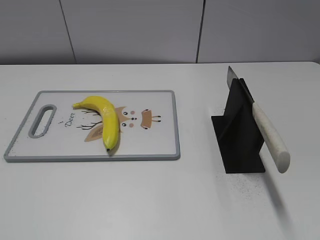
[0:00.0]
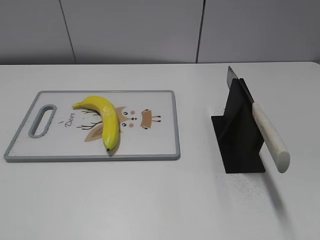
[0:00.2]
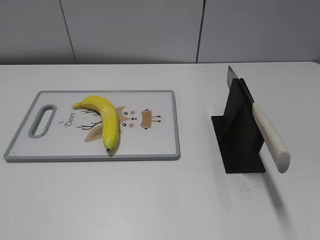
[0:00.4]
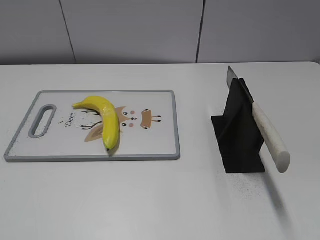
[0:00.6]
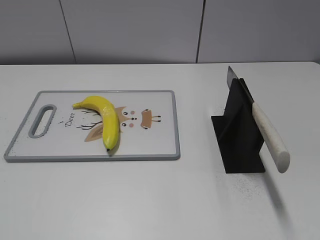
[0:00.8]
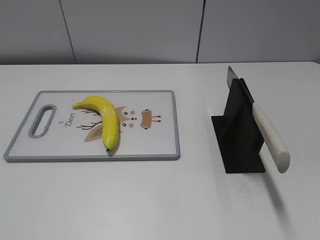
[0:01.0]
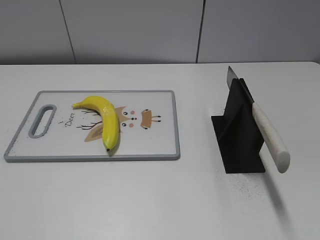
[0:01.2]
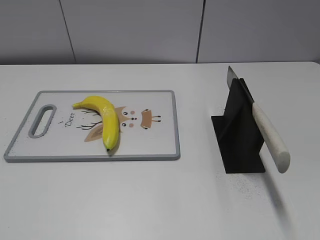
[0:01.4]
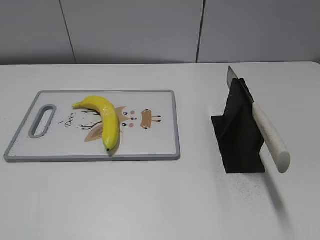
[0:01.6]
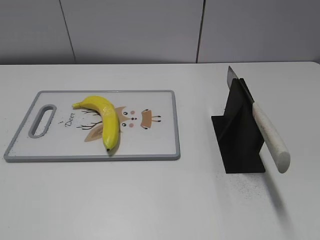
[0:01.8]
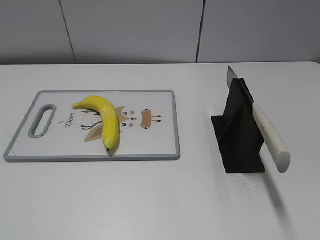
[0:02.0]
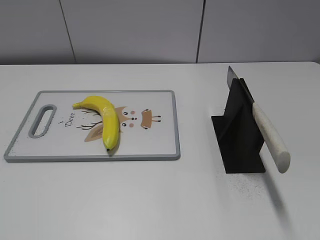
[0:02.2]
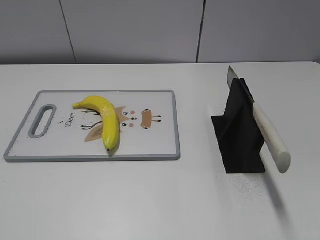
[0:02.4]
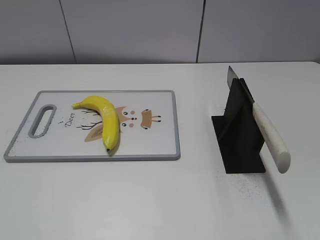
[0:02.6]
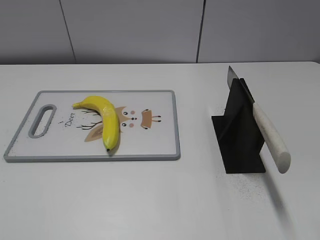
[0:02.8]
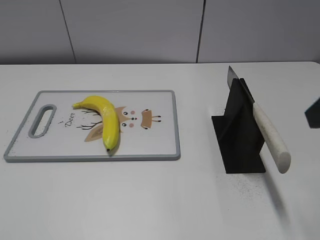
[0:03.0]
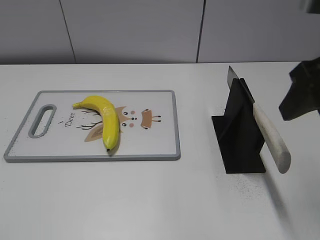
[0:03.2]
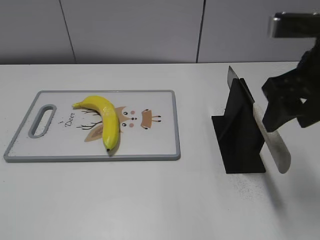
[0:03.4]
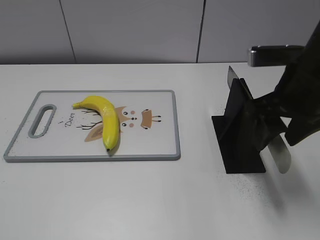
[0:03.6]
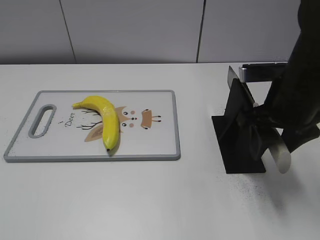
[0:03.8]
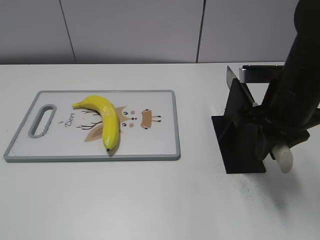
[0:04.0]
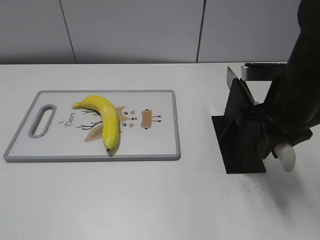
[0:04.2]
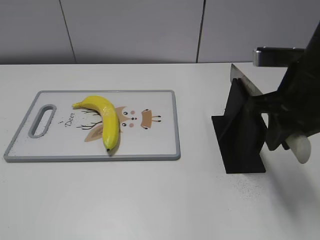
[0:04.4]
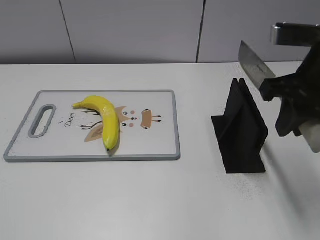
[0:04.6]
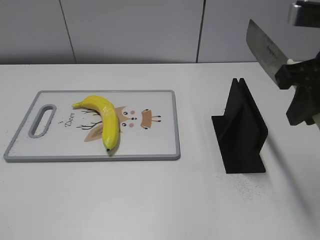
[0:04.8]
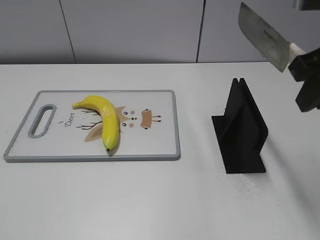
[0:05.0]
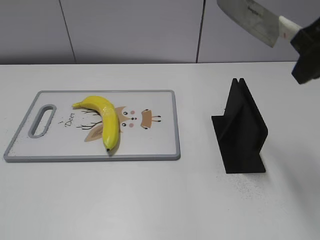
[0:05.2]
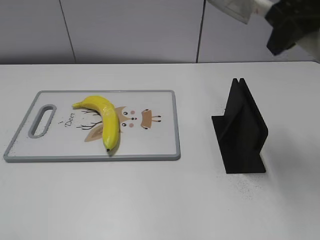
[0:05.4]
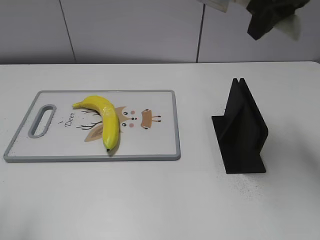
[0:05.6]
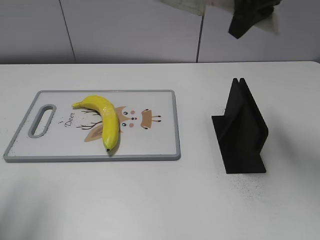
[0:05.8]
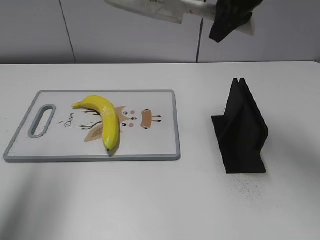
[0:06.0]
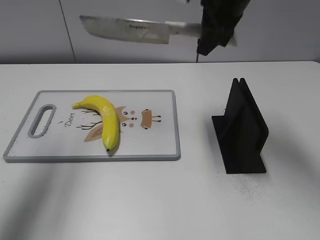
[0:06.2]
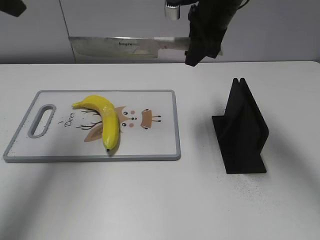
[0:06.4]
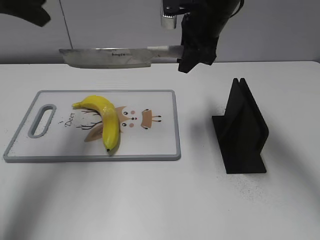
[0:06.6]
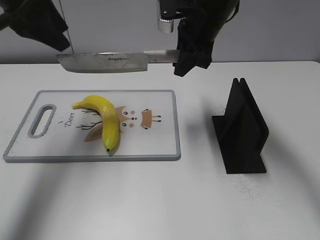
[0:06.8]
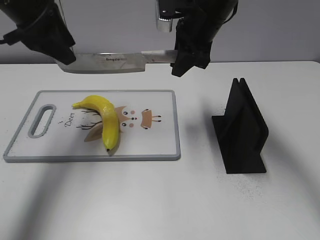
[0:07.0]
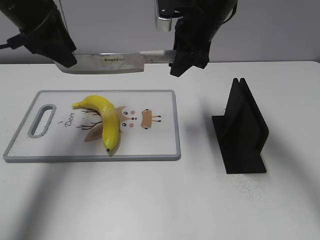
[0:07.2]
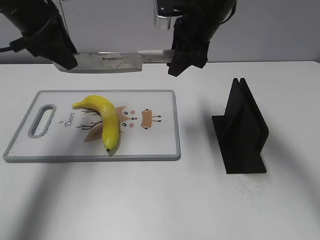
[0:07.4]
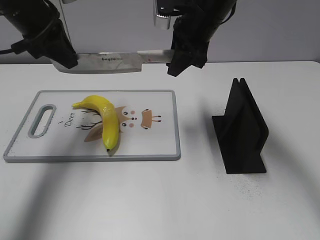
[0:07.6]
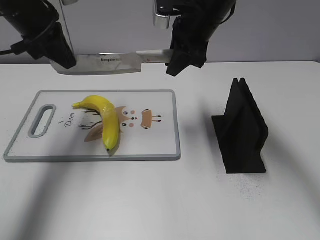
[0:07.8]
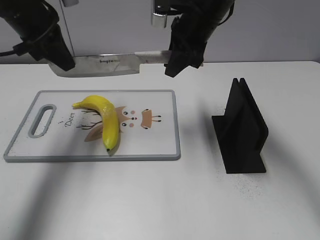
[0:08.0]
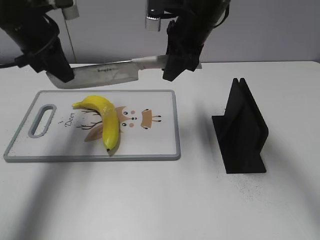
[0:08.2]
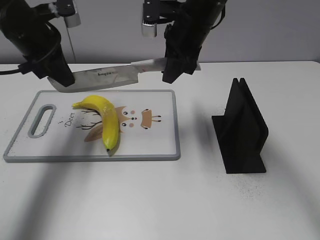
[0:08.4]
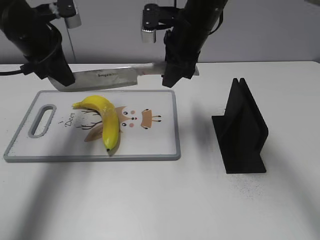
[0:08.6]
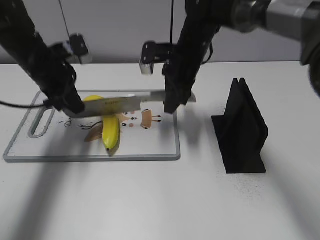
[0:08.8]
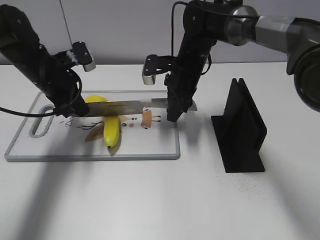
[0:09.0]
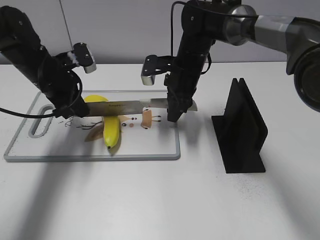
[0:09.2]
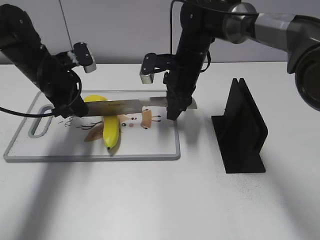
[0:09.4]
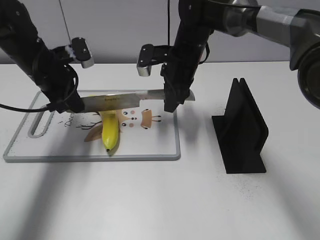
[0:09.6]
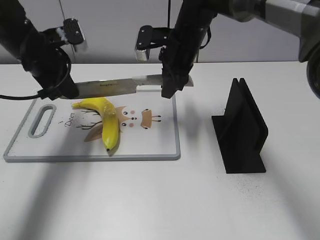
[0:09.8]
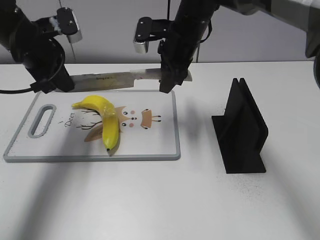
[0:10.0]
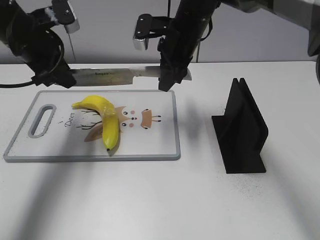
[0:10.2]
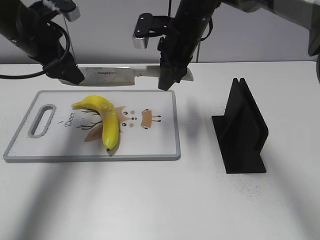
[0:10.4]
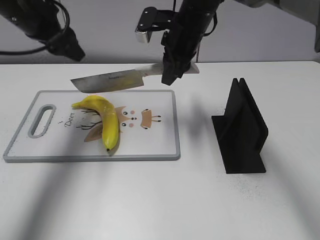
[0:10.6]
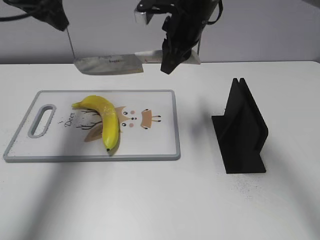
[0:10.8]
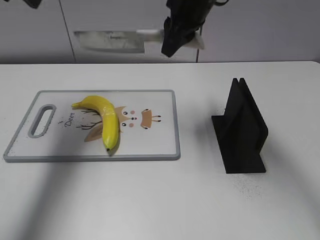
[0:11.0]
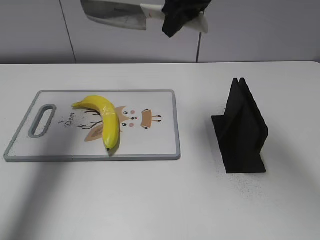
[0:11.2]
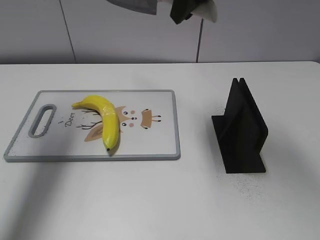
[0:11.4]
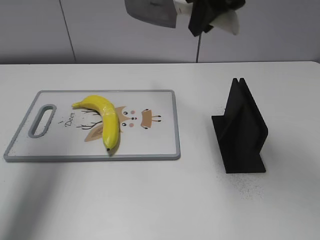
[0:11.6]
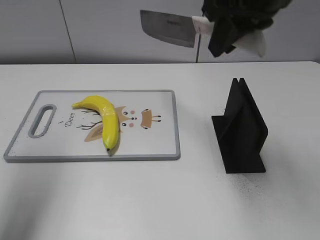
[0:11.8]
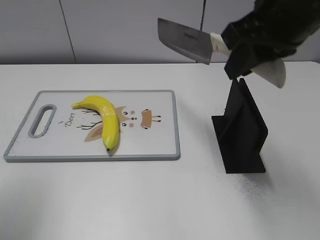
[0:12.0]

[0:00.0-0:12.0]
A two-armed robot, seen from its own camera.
Task of the whole recording: cut plastic banana.
Step, 0:00.0 to 0:04.8: Grab the knife handle with your right hand.
Step, 0:05.0 to 0:09.6: Lift the knife with your right hand.
Step, 0:09.8 to 0:11.6: Cut the banana with your right hand.
0:03.0 to 0:04.4: The right gripper travels forward and downward by about 15 cm, and closes up.
0:04.4 to 0:06.0: The left gripper is displaced forward and upward by some 25 cm. The right gripper is displaced forward, upward and to the left by roughly 15 cm.
0:06.0 to 0:07.6: The right gripper shifts some 10 cm downward and to the left. Meanwhile the left gripper goes about 20 cm forward, downward and to the right, and closes.
0:07.6 to 0:09.0: Both grippers travel together downward, roughly 15 cm.
0:09.0 to 0:10.4: The two grippers go some 10 cm upward. The left gripper opens up.
0:10.4 to 0:12.0: The right gripper shifts about 25 cm backward, upward and to the right. Meanwhile the left gripper heads backward, upward and to the left, covering about 25 cm.

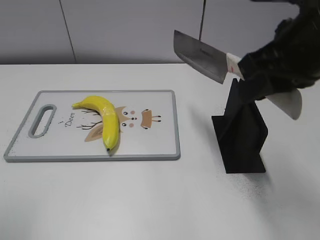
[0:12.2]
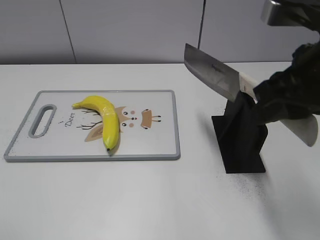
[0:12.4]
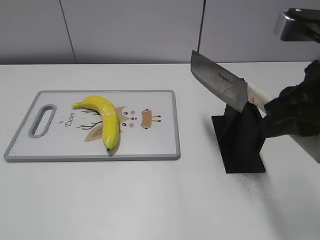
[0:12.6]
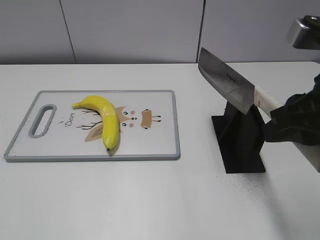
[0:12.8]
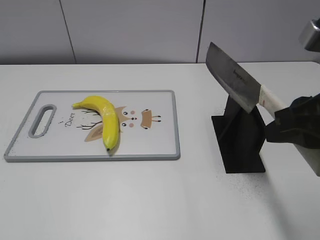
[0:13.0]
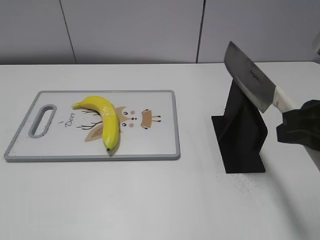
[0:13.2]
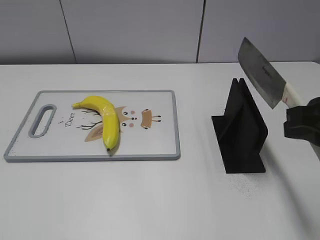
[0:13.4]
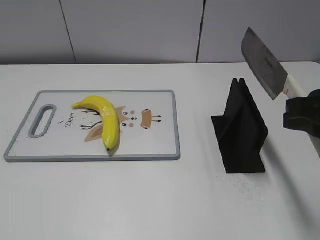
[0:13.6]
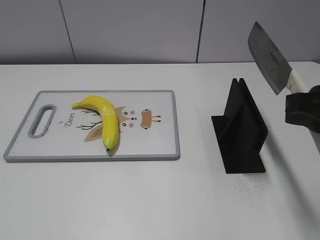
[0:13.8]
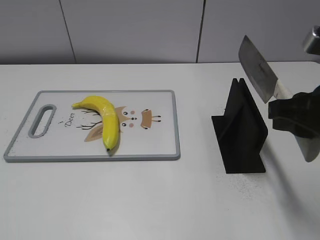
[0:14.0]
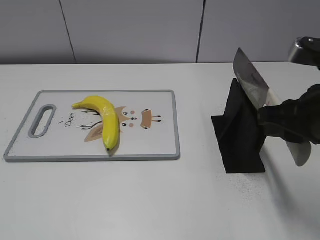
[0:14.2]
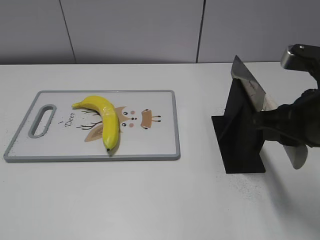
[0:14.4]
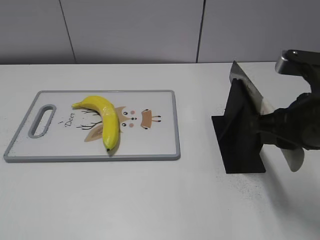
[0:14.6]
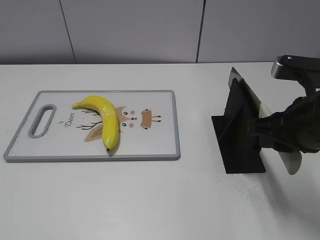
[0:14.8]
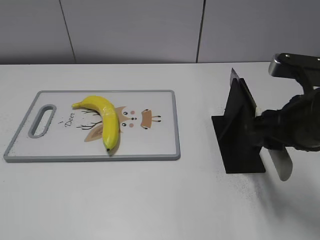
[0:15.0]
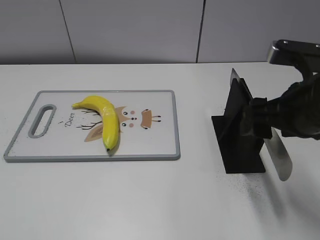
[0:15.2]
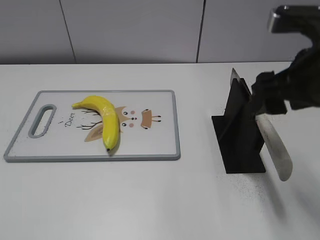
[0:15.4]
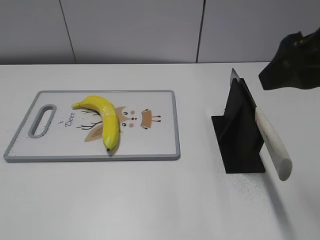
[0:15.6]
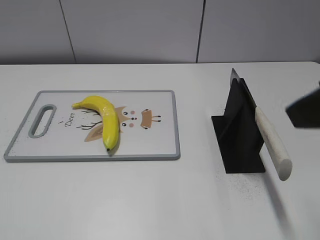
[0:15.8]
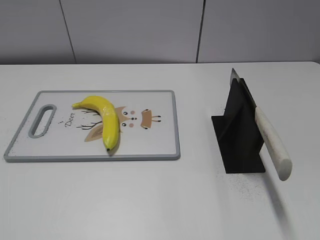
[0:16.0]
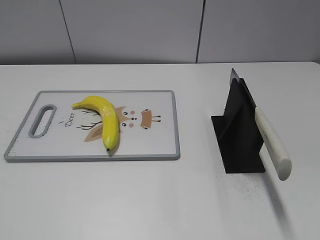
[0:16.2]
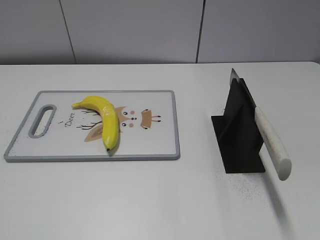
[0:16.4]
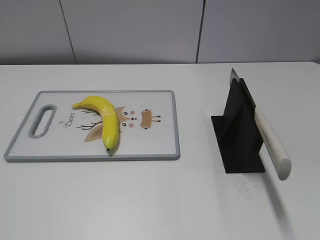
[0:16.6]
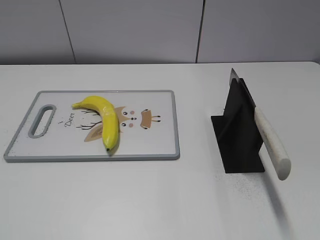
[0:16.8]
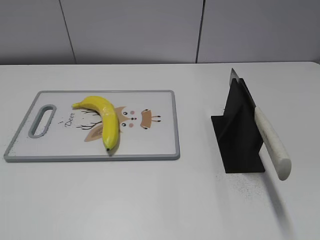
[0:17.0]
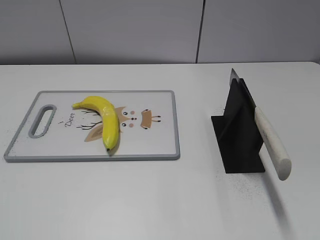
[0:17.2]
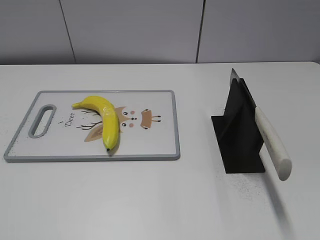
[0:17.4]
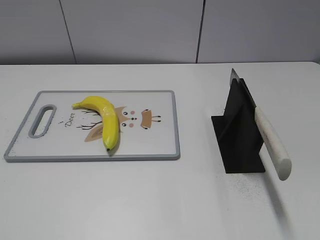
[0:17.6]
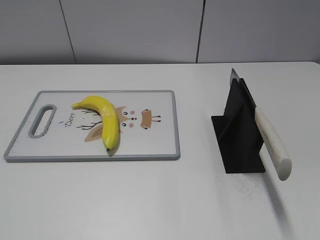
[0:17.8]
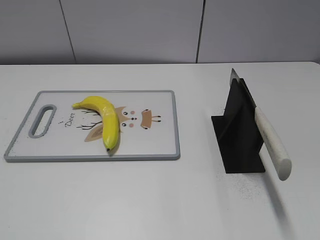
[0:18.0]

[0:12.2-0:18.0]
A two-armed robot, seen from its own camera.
Task of the whole recording: cut plastic banana.
Step, 0:12.8 to 0:18.0: Place the knife on the storage rack with your right hand.
0:12.2 to 0:13.6: The right gripper heads backward and to the right, covering roughly 10 cm. Meanwhile the left gripper is displaced backward and downward by about 15 cm.
0:13.6 to 0:15.0: The right gripper moves downward, approximately 5 cm.
0:15.0 to 0:16.6: The right gripper shifts some 20 cm backward, and opens its fingers.
